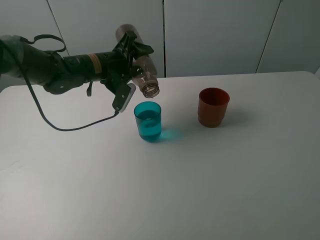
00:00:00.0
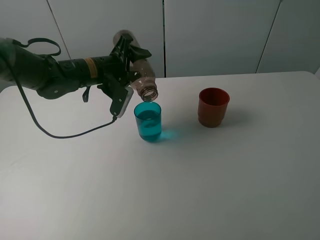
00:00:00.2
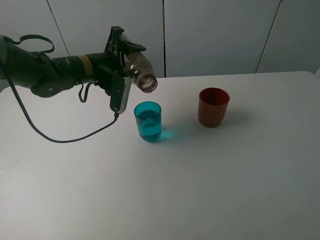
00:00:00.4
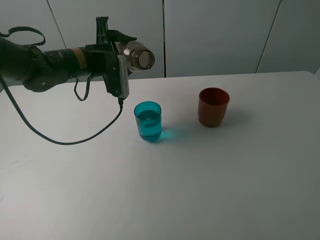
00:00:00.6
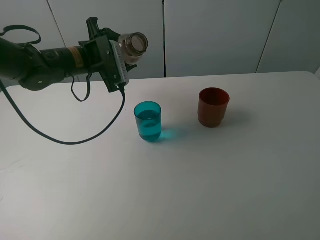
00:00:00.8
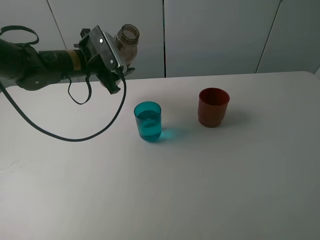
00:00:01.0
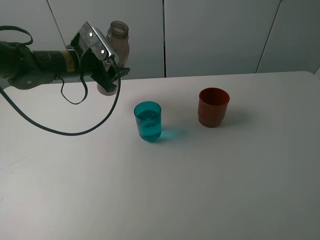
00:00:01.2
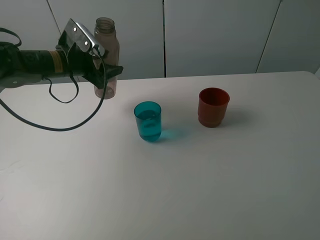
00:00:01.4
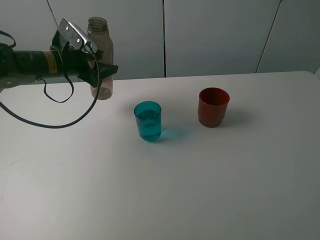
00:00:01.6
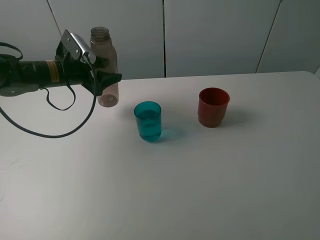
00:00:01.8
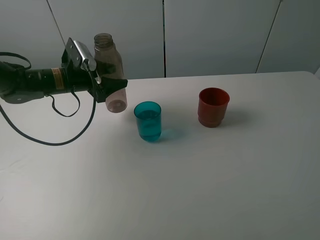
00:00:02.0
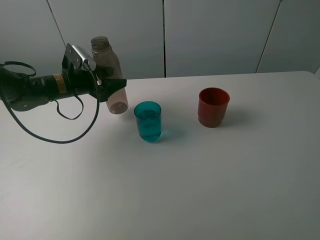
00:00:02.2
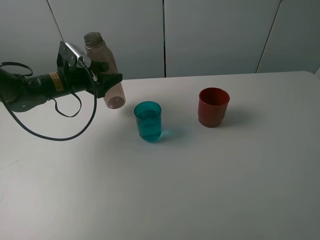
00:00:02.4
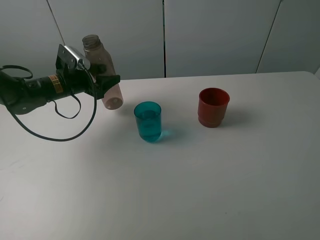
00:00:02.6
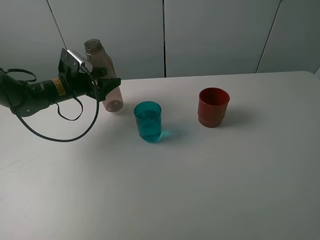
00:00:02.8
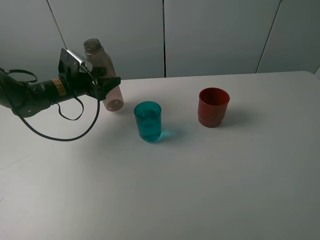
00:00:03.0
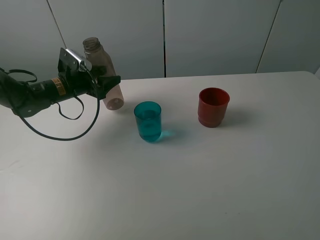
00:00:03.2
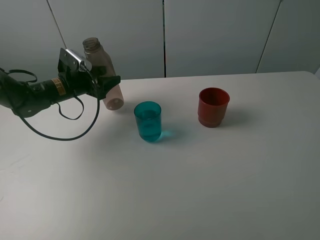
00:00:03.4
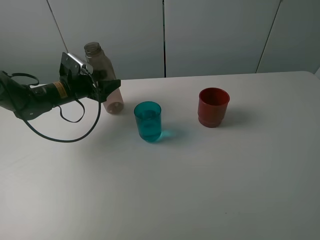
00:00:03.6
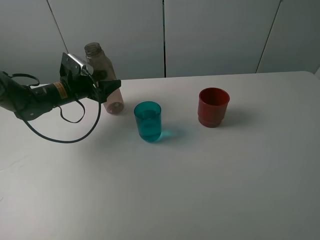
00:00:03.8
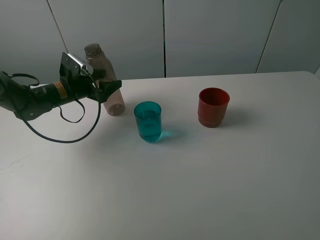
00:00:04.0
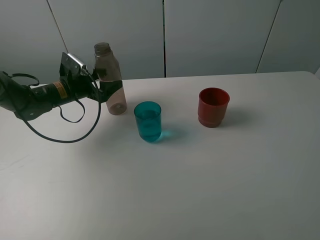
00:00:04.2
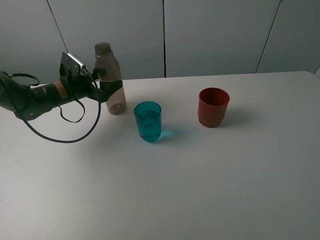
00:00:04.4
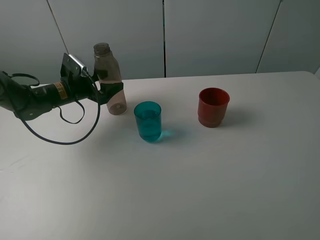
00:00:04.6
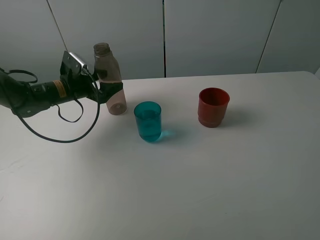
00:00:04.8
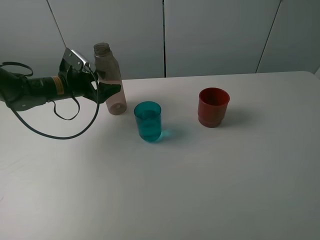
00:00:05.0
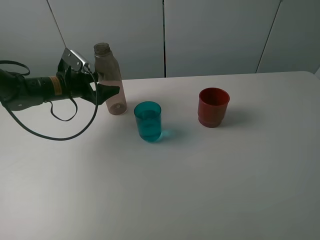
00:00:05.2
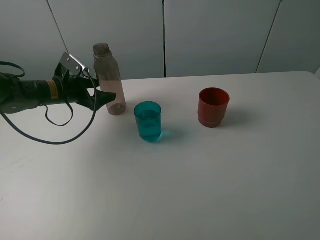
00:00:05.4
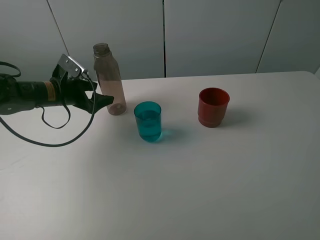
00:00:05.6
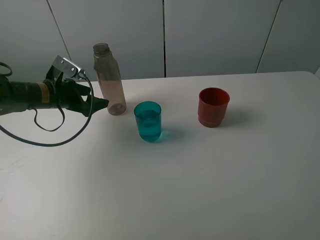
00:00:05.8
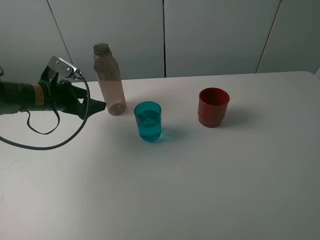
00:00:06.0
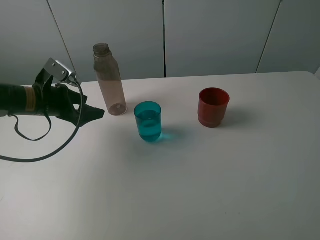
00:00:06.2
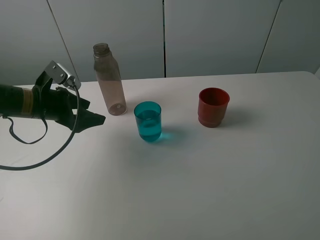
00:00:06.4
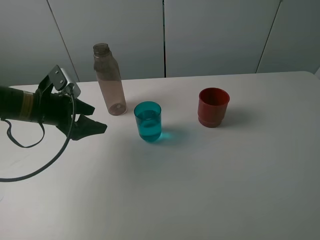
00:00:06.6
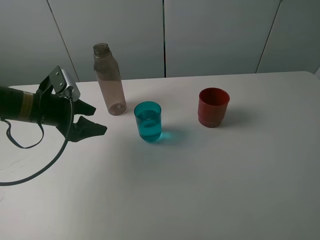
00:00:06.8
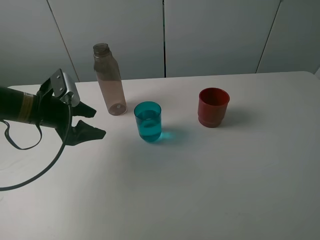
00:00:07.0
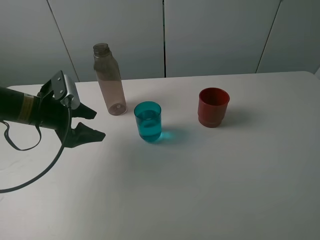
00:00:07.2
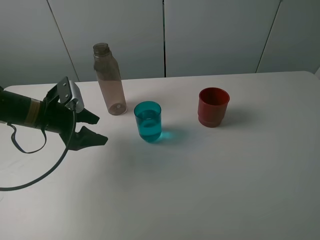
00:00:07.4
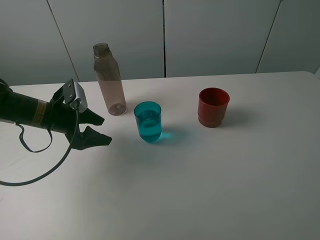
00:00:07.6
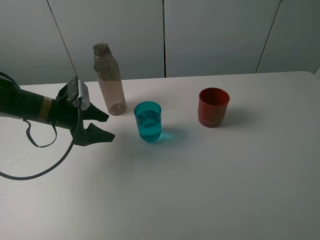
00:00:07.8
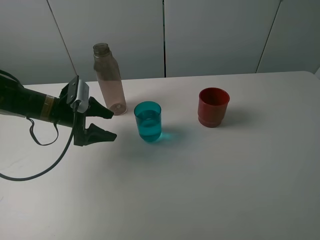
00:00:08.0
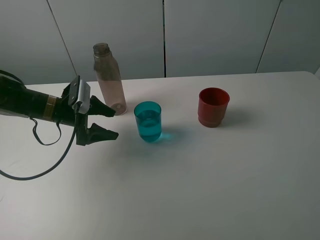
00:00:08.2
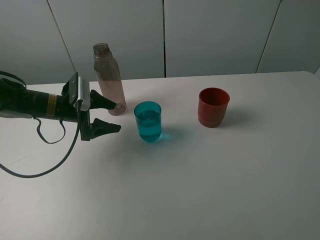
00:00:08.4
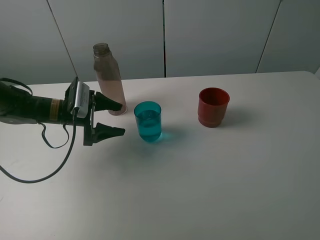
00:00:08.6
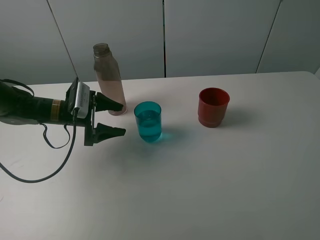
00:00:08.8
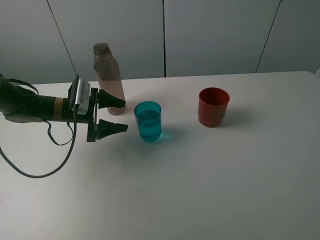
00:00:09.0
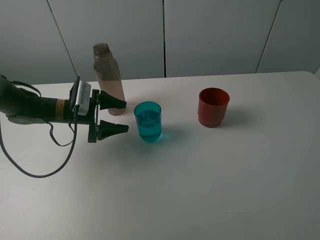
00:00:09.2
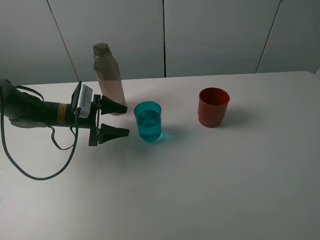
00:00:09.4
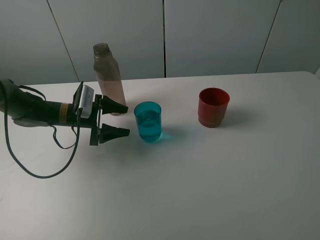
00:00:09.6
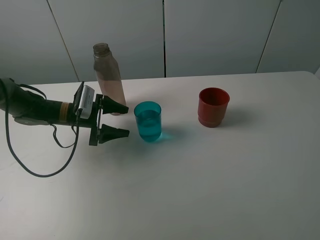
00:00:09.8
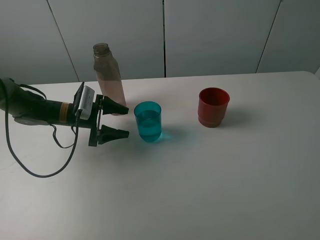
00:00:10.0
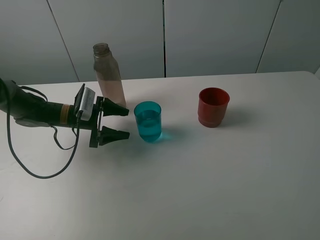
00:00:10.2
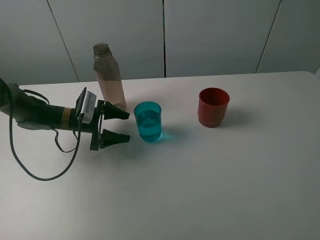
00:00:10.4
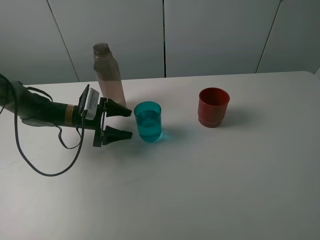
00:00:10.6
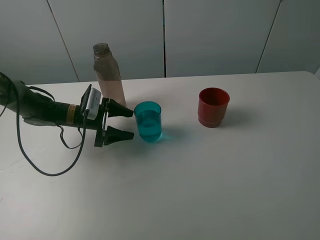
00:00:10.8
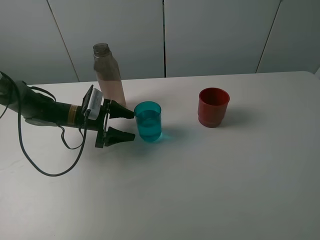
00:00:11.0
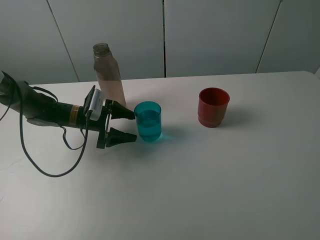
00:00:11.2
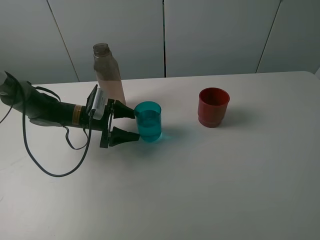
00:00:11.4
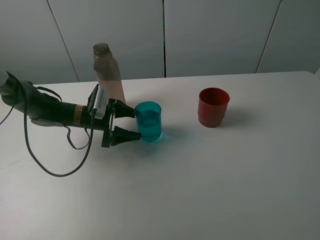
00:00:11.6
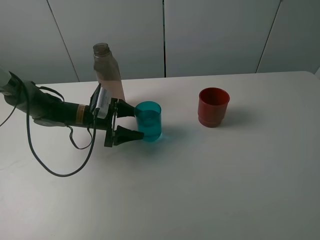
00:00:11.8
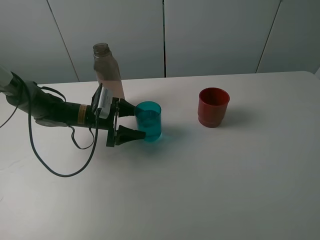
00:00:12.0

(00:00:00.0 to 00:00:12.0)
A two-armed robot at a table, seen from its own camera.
Task of the whole recording: pick up the bottle and pour water into the cup, then pick up the cup containing water and pour it into another cup.
Step, 00:00:00.0 - 00:00:04.4: Place the brown bottle with the left gripper.
00:00:00.0 - 00:00:01.6: The left gripper travels to the left by some 10 cm.
00:00:01.6 - 00:00:03.0: The left gripper is displaced downward by about 5 cm.
00:00:03.0 - 00:00:04.4: The left gripper opens its fingers.
00:00:04.4 - 00:00:06.0: The left gripper goes approximately 5 cm backward.
00:00:07.6 - 00:00:09.0: The left gripper ends up roughly 5 cm from where it was.
00:00:09.0 - 00:00:12.0: There are only small adjustments of the grippers.

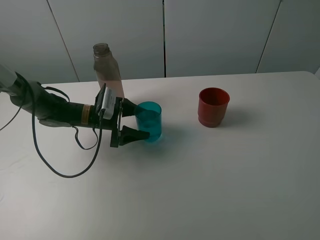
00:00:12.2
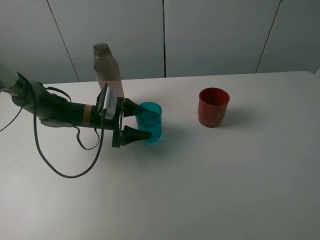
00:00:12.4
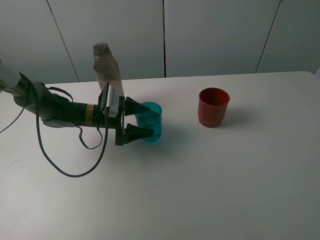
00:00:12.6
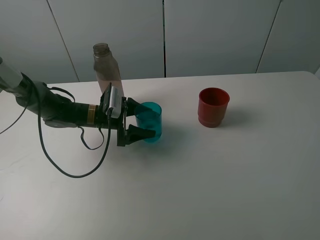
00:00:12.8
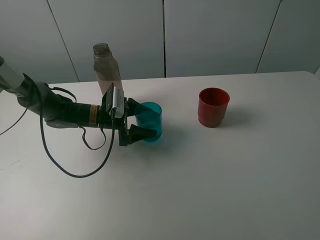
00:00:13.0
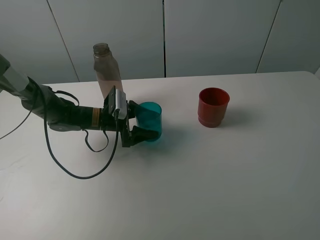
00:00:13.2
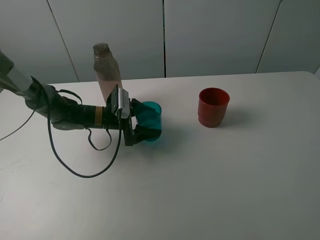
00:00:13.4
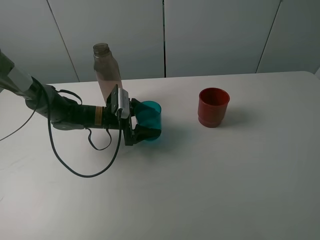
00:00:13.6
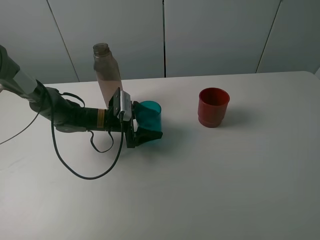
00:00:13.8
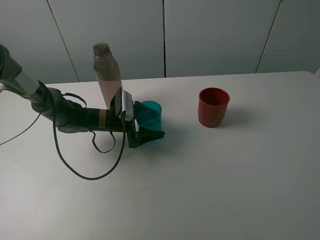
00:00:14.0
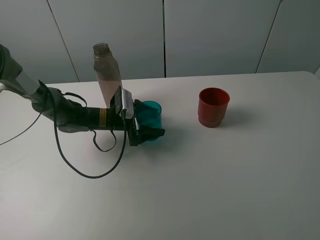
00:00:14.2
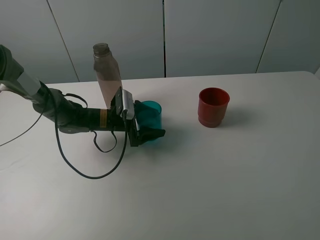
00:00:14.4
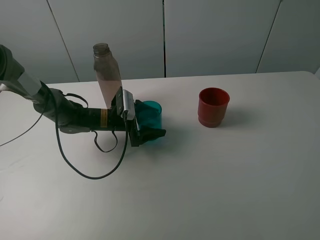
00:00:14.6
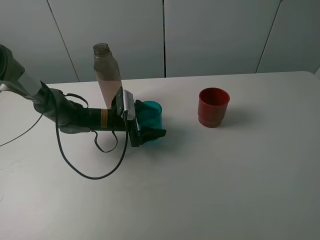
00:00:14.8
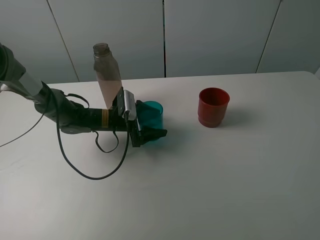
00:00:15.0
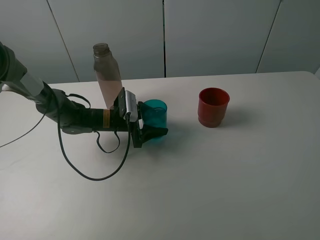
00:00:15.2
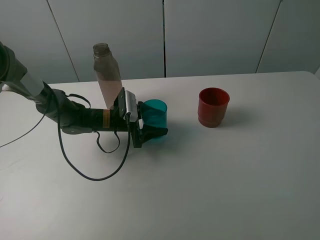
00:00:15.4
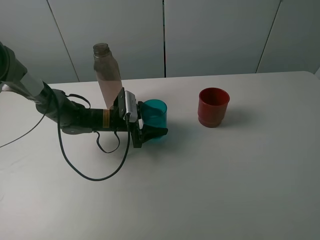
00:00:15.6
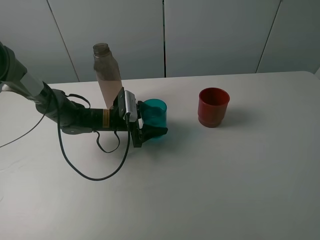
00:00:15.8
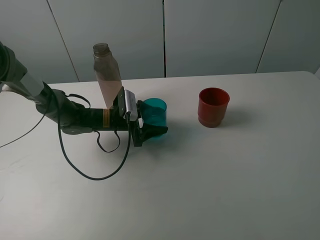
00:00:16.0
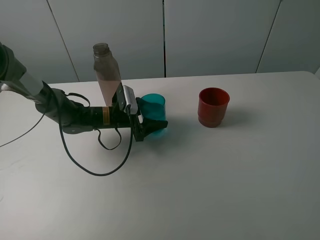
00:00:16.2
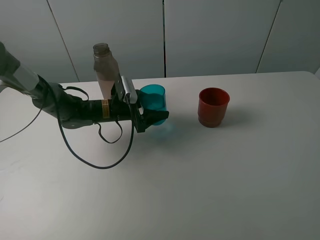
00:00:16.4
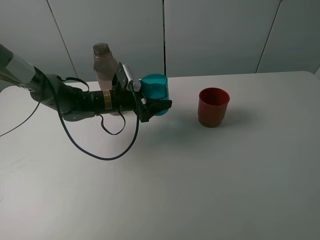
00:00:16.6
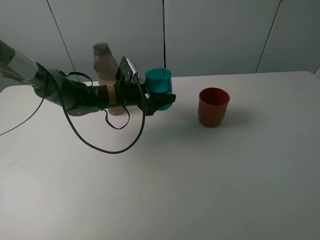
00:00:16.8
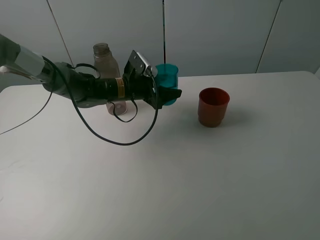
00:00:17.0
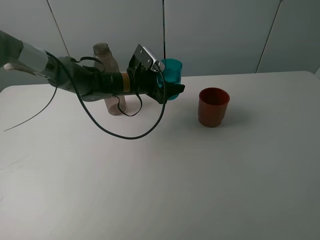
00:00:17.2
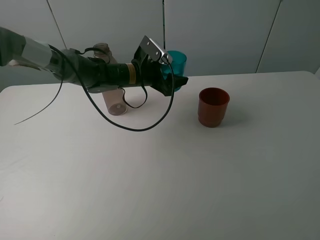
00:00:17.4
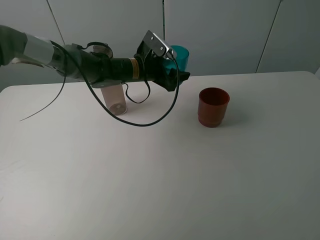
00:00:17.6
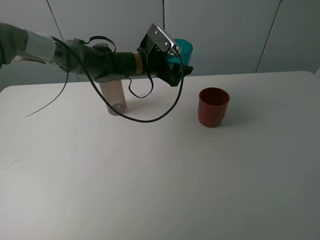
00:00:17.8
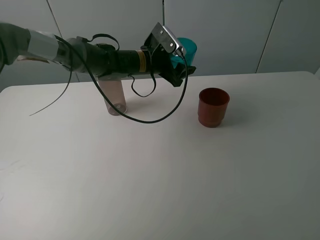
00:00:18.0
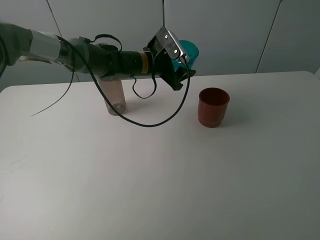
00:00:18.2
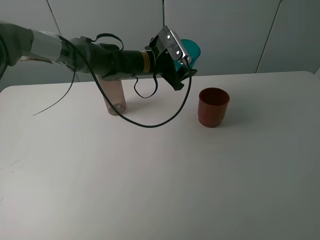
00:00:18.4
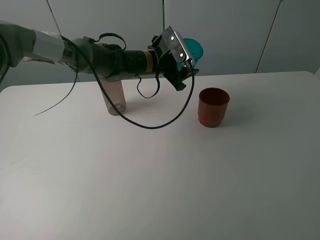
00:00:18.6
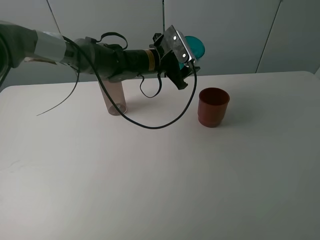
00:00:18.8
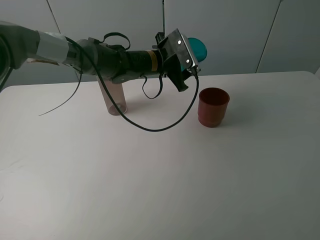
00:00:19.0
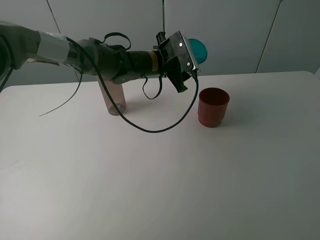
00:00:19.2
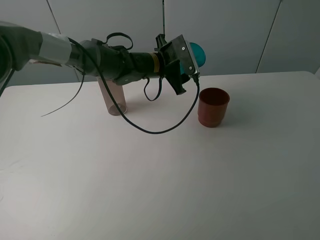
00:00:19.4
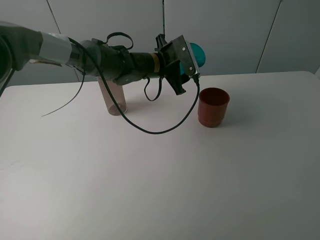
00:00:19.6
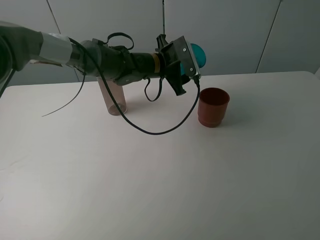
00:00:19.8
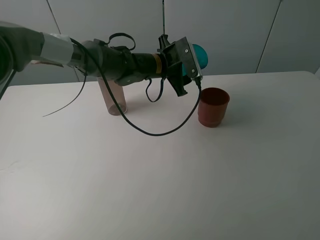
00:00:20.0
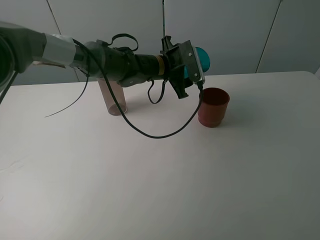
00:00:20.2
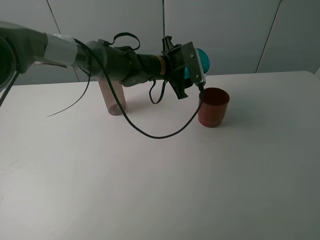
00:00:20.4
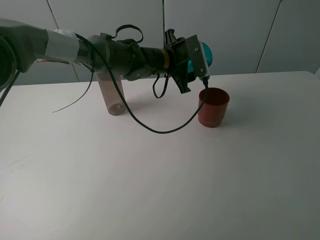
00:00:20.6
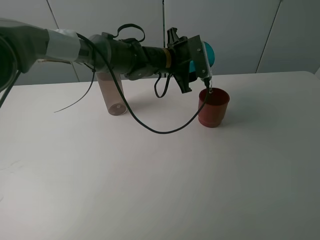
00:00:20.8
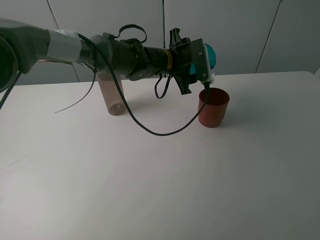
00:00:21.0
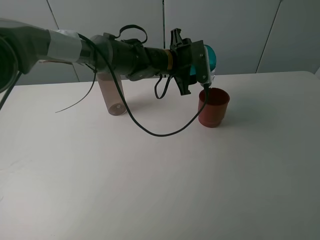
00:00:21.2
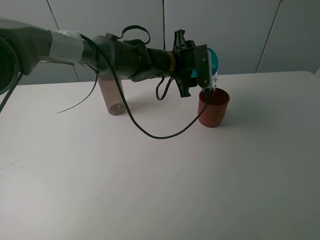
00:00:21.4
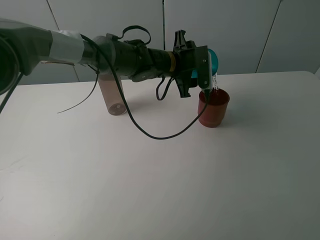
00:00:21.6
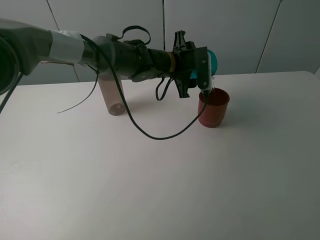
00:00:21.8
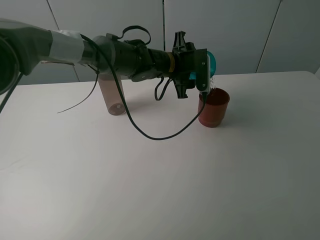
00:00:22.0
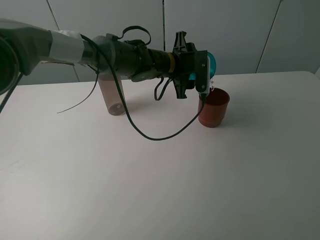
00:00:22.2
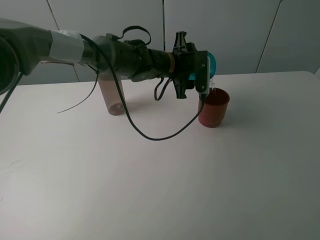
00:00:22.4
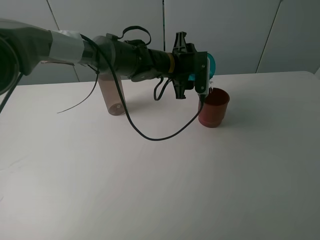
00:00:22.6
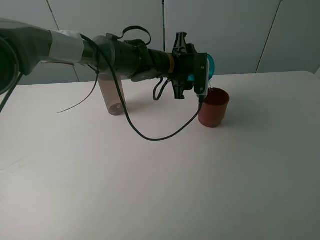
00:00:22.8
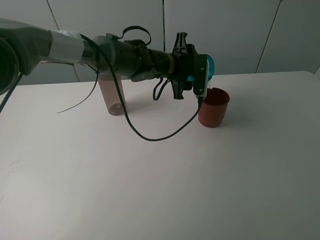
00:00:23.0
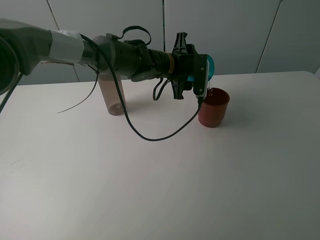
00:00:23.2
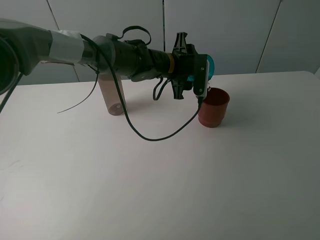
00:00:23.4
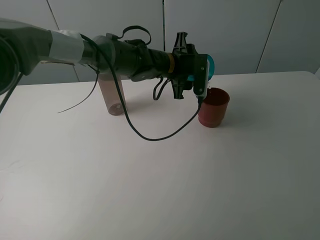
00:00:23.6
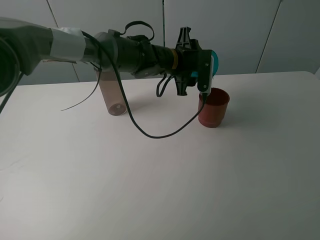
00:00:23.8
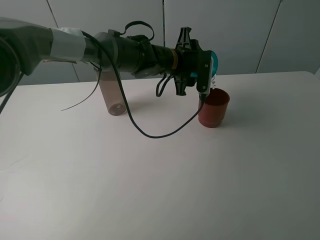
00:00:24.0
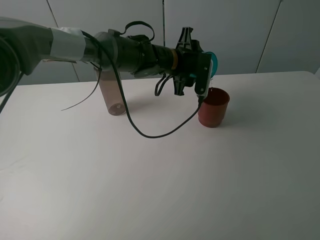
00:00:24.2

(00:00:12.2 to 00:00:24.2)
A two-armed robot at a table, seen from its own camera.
Task of the whole recording: pick up the bottle and pour water into the cup, then pick up the cup containing water and pour it into another cup.
Step, 00:00:12.2 - 00:00:15.6: Grasp the blue cup with the left gripper.
00:00:12.2 - 00:00:13.8: There are only small adjustments of the grippers.
00:00:13.8 - 00:00:15.2: The left gripper closes its fingers.
00:00:15.2 - 00:00:16.6: The left gripper moves upward, about 5 cm.
00:00:16.6 - 00:00:18.2: The left gripper is displaced to the right, upward and forward by roughly 10 cm.
00:00:19.8 - 00:00:21.2: The grippers stay close to where they were, moving slightly.
00:00:21.2 - 00:00:24.2: The grippers stay close to where they were, moving slightly.
